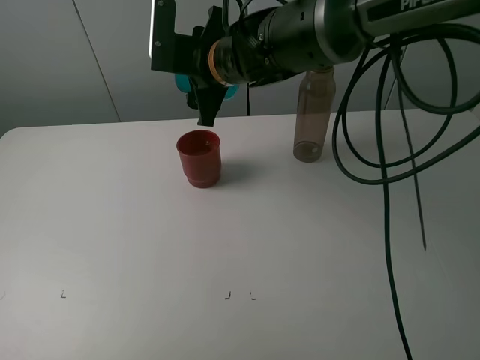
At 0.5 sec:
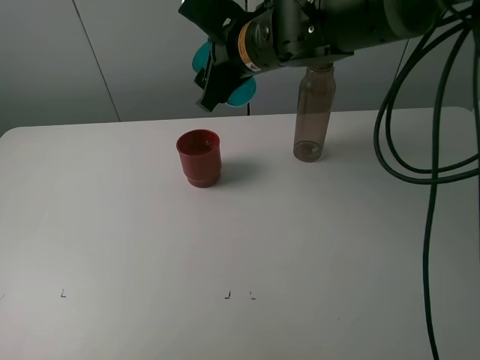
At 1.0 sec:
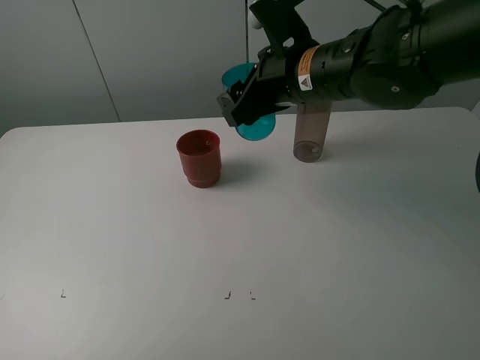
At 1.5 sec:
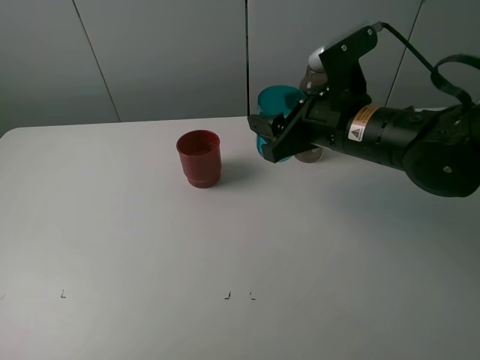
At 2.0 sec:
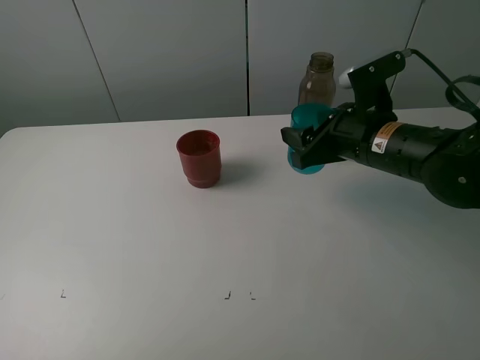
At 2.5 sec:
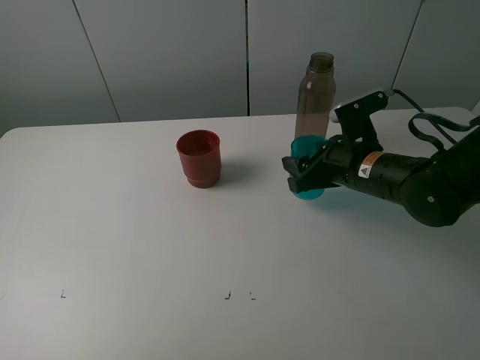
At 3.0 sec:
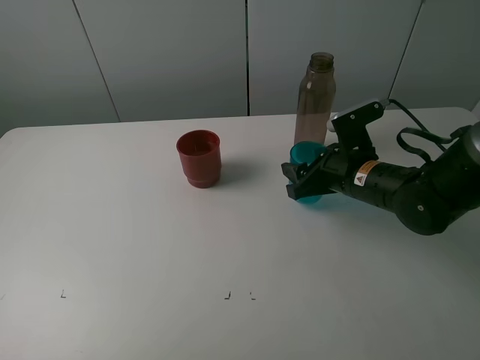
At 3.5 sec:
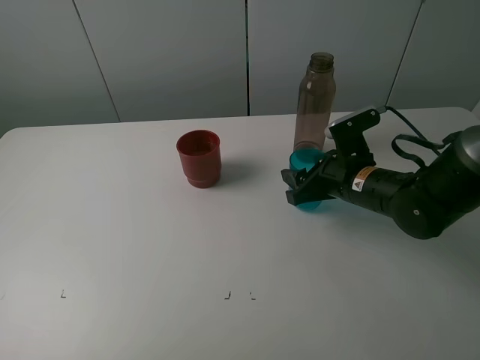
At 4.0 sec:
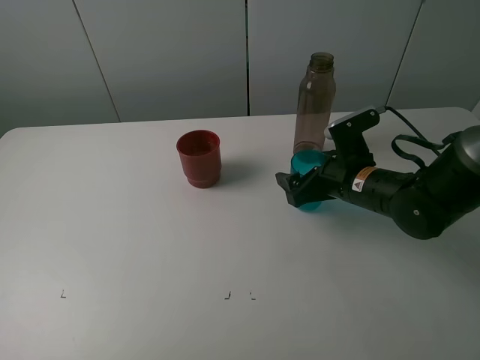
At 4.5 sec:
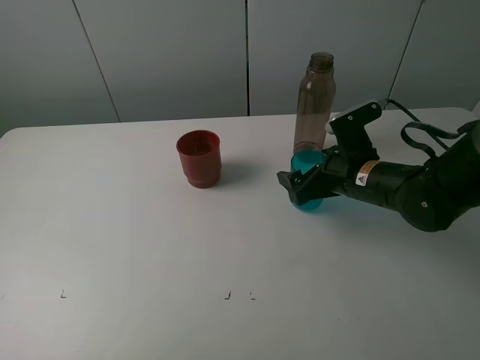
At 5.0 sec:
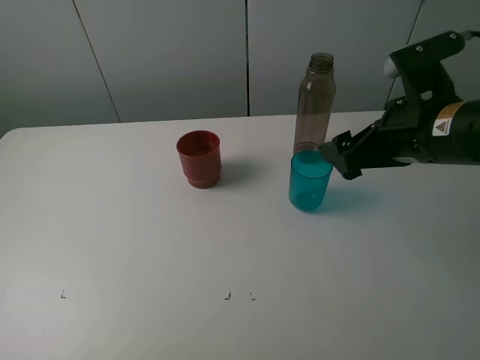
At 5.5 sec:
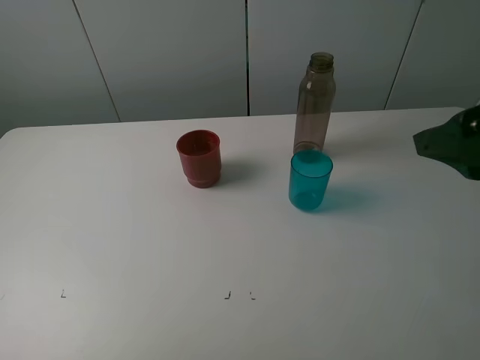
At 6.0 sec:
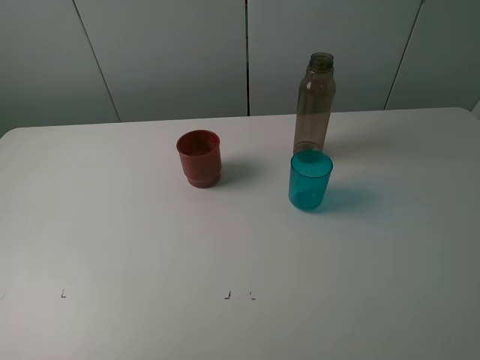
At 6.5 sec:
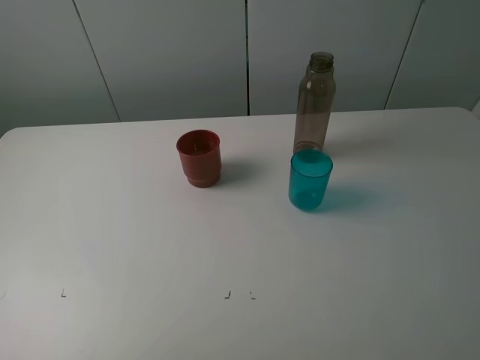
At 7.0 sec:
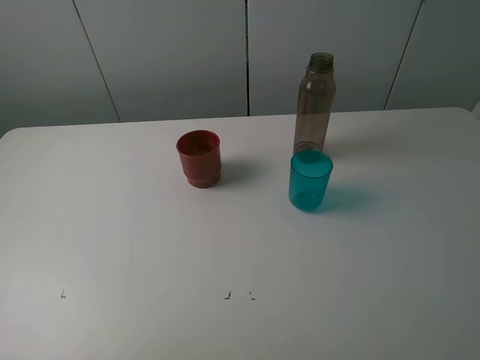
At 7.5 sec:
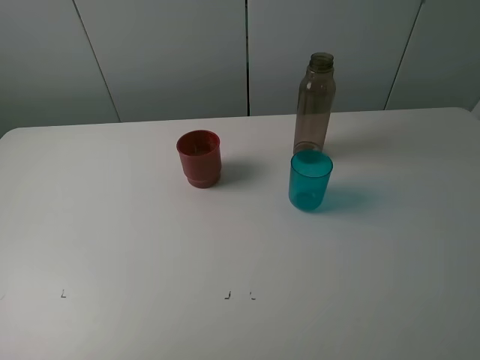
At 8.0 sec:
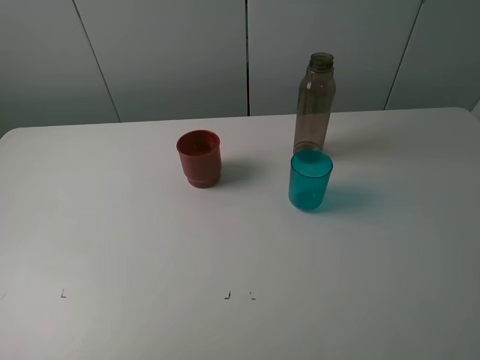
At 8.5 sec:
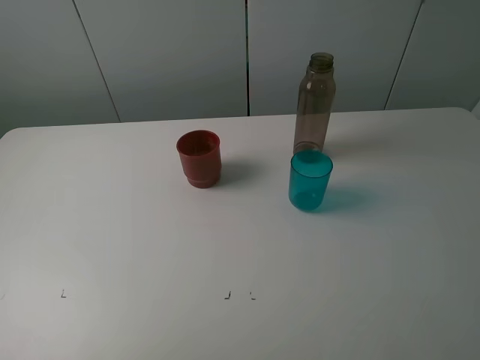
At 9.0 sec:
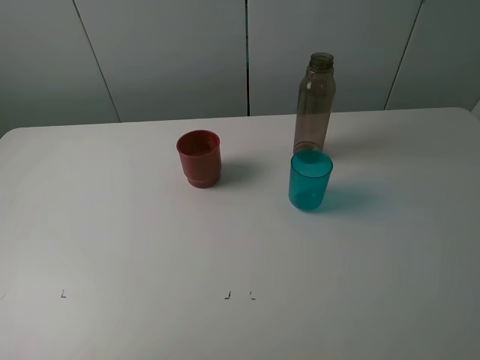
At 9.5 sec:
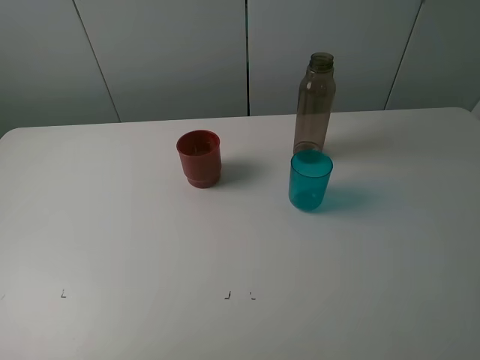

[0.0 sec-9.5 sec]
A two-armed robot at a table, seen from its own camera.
Task of the whole recording: pick up the bottle and pour water into the cup, then pick up the cup containing water and pour it into another cup.
Step, 0.0 sec to 4.0 sec: Place the blue cup with the right gripper.
0.0 sec to 2.0 sec: The right gripper is displaced to the right and backward by approximately 20 cm.
2.0 sec to 4.0 sec: The right gripper shifts approximately 5 cm downward, and opens.
4.0 sec to 5.5 sec: The right gripper is displaced upward and backward by some 25 cm.
5.5 sec to 7.5 sec: The right gripper moves backward, approximately 15 cm.
7.5 sec to 9.5 sec: Both grippers stay about where they are.
